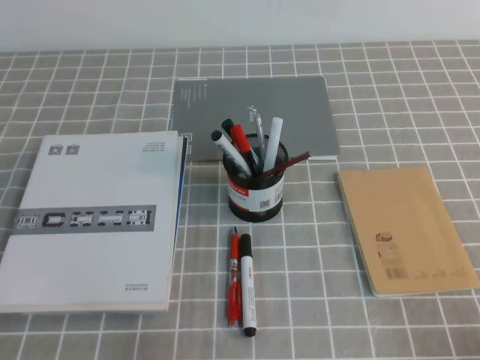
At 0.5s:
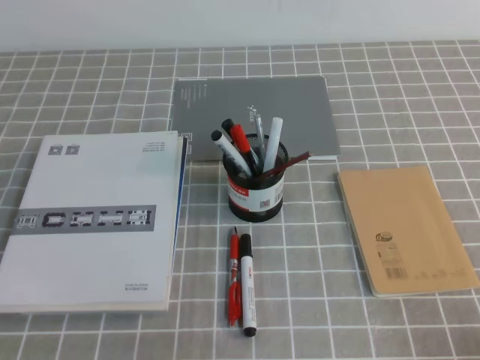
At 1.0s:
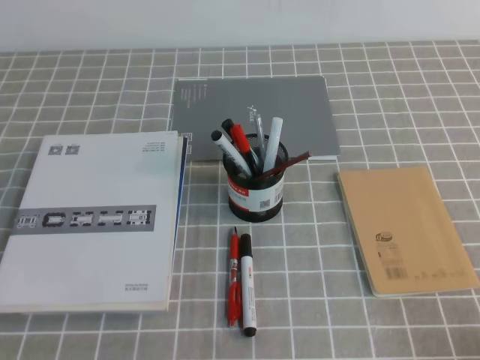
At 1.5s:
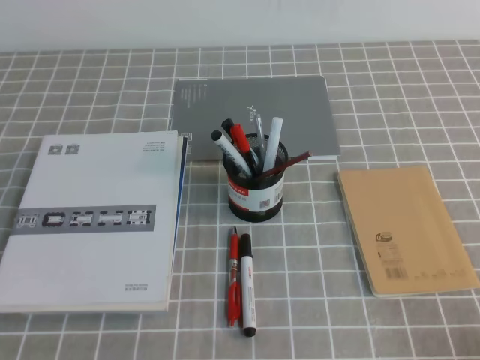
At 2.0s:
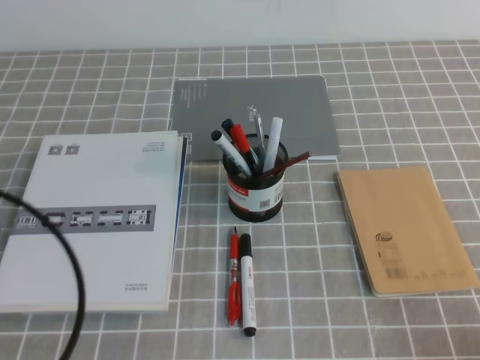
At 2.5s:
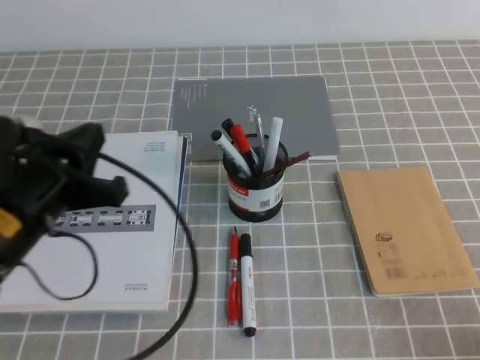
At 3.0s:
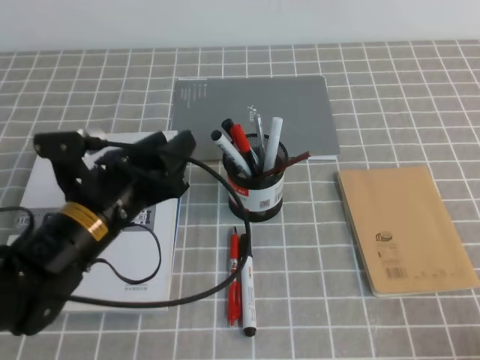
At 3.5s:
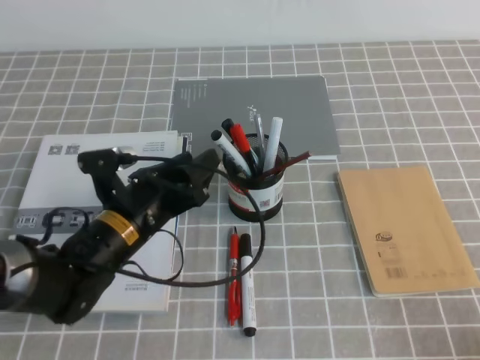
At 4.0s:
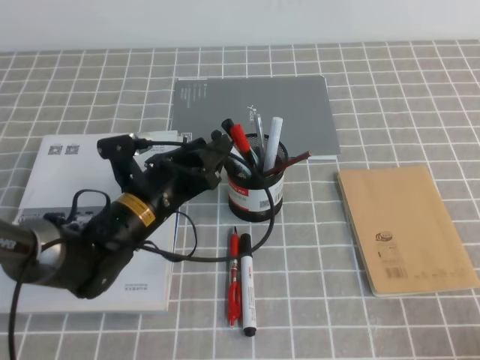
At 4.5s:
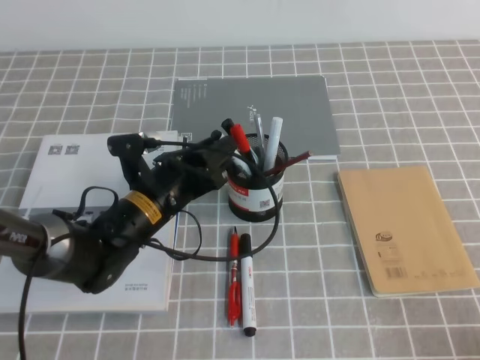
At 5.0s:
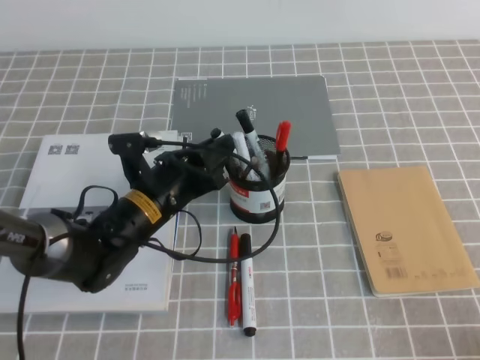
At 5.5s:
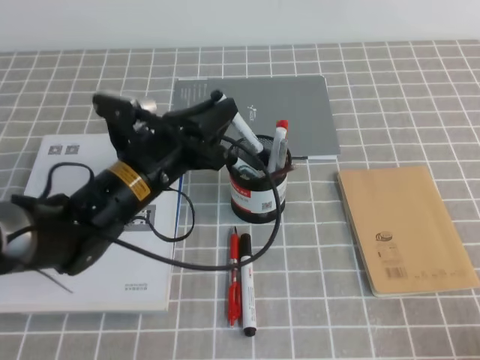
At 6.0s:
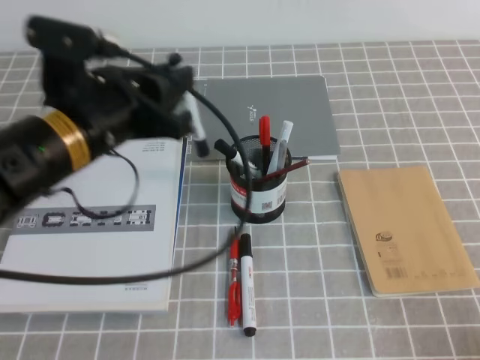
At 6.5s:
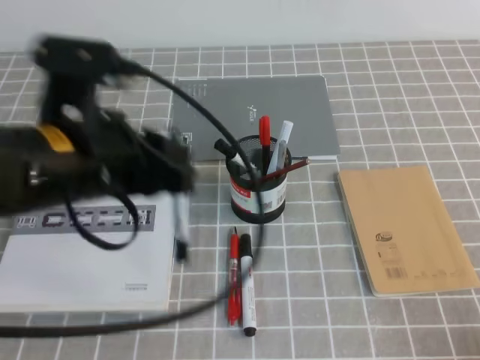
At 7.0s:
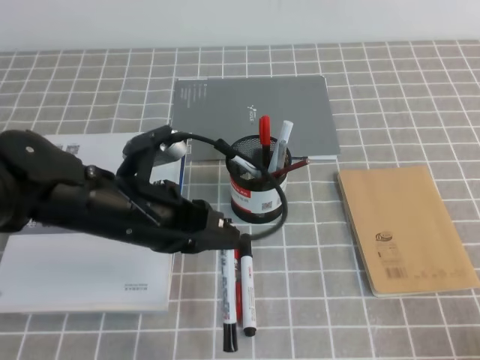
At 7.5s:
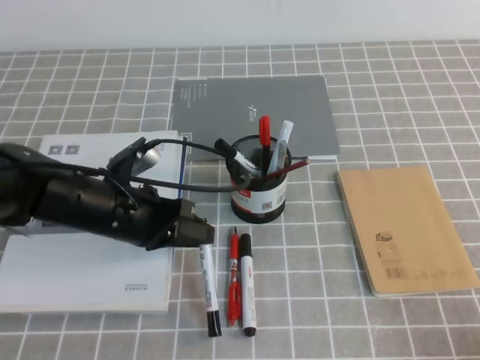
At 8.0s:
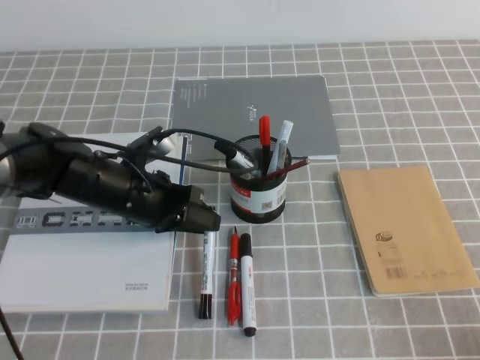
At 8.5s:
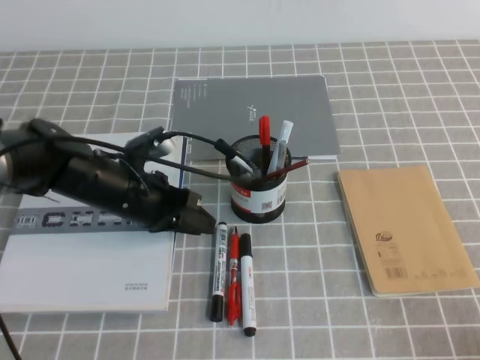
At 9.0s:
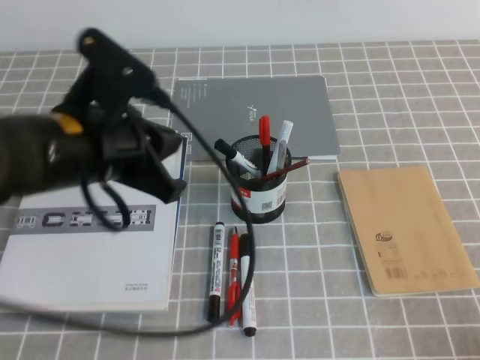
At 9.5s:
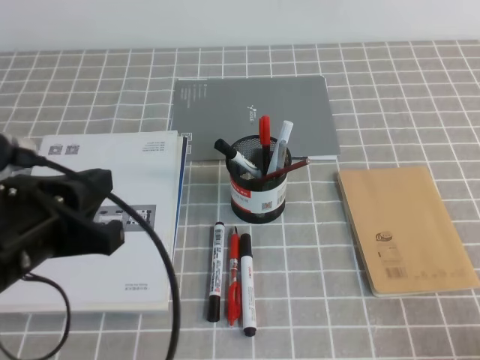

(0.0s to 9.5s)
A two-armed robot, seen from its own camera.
0.0s - 2.0s: The left gripper travels upward and forward by approximately 15 cm.
2.0s - 4.0s: The left gripper shifts roughly 30 cm forward, to the right and downward, and opens its fingers.
4.0s - 5.5s: The left gripper shifts approximately 5 cm upward, and closes its fingers.
5.5s - 7.5s: The left gripper reaches about 10 cm upward, then returns.
7.5s - 9.5s: The left gripper travels backward and upward by some 15 cm.

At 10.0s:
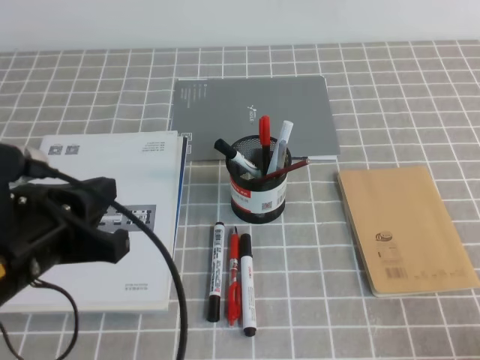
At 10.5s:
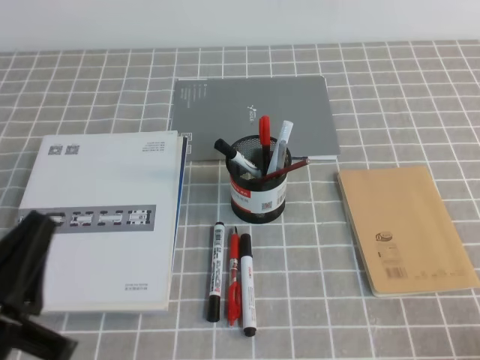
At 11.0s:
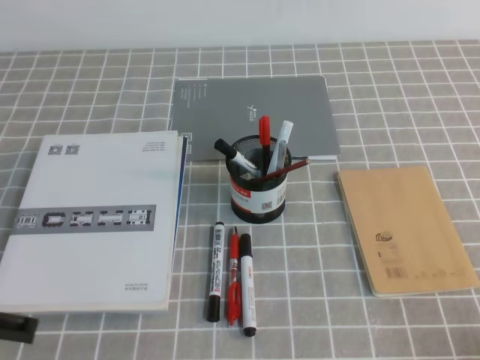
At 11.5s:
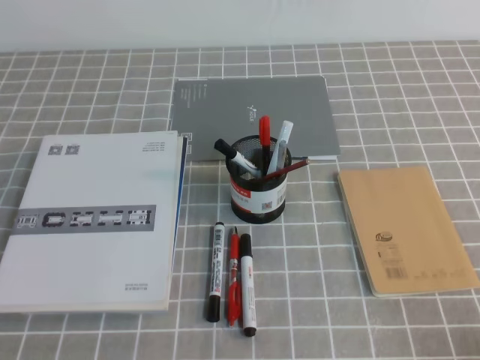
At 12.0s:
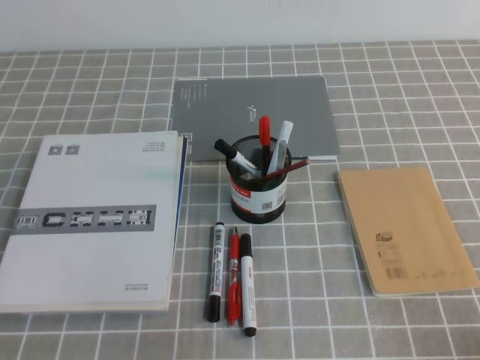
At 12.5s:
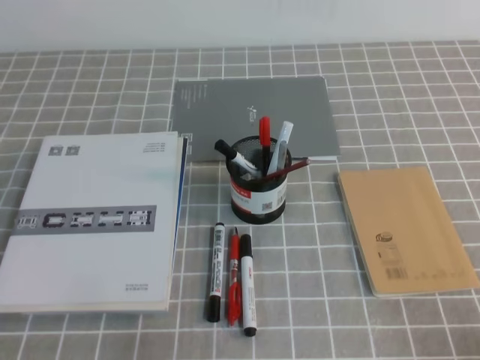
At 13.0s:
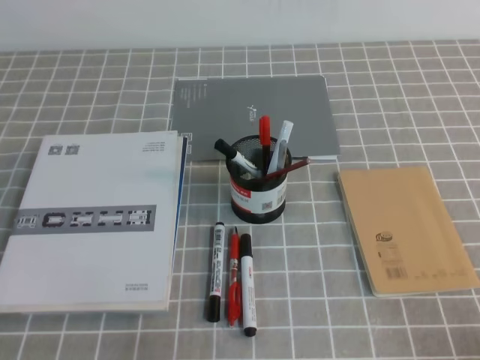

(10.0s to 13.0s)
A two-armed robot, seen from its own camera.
Step, 10.0s - 13.0s: Pick up the pen from the pen holder.
10.0s - 11.5s: The left gripper shifts some 15 cm to the left, backward and downward.
